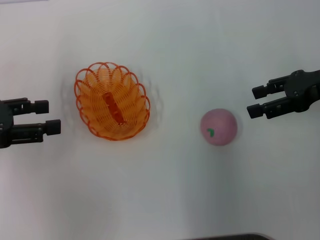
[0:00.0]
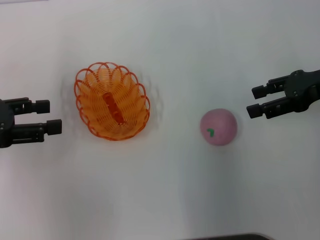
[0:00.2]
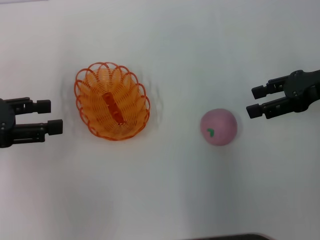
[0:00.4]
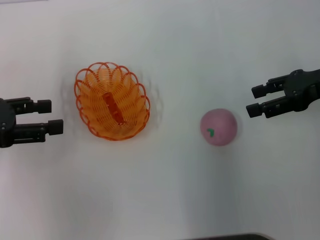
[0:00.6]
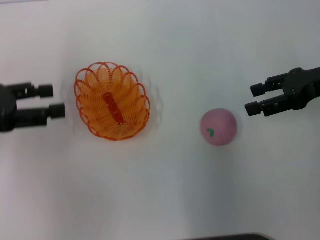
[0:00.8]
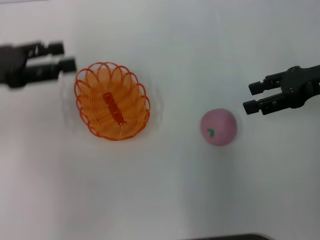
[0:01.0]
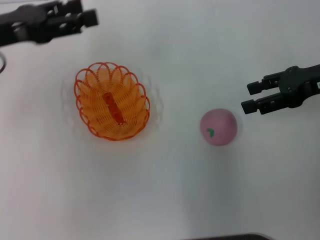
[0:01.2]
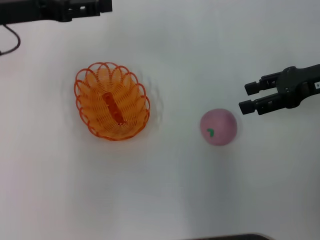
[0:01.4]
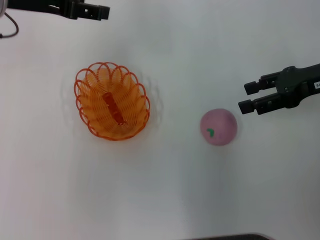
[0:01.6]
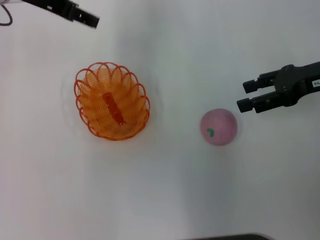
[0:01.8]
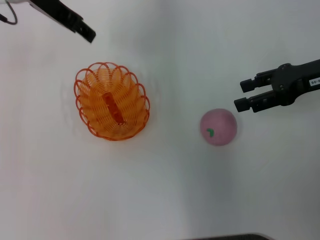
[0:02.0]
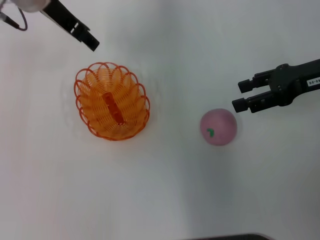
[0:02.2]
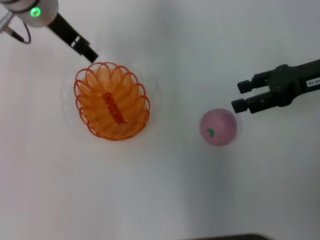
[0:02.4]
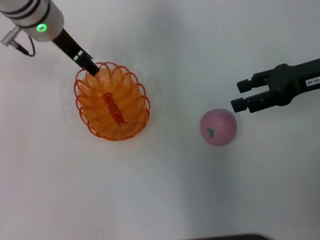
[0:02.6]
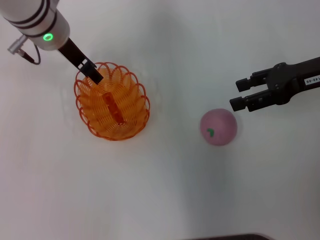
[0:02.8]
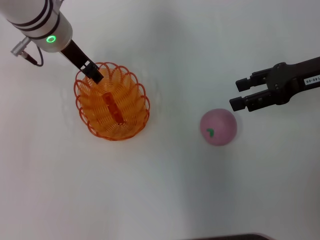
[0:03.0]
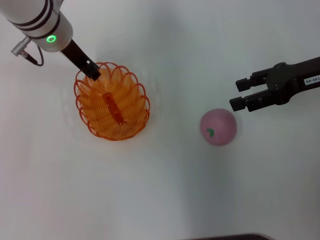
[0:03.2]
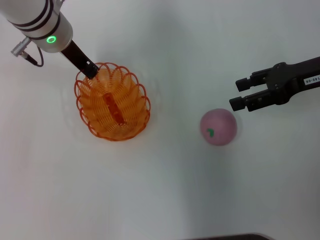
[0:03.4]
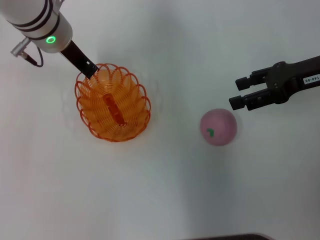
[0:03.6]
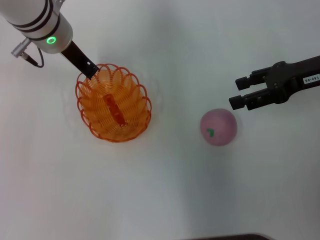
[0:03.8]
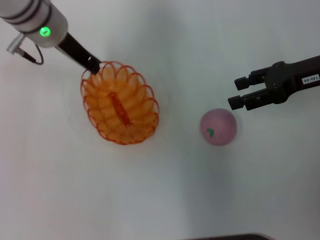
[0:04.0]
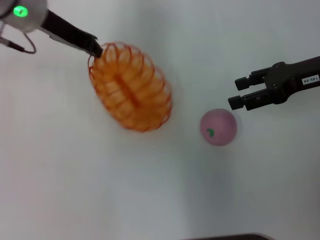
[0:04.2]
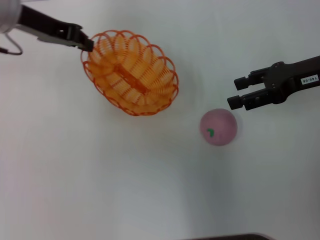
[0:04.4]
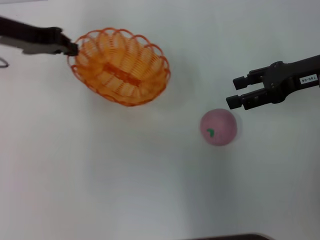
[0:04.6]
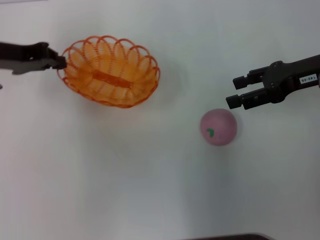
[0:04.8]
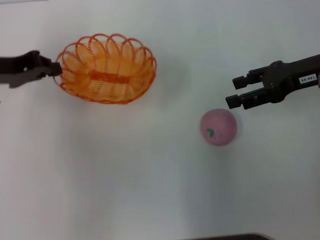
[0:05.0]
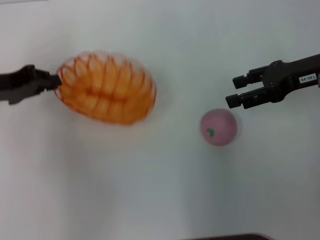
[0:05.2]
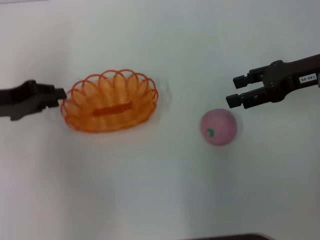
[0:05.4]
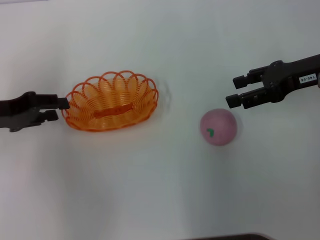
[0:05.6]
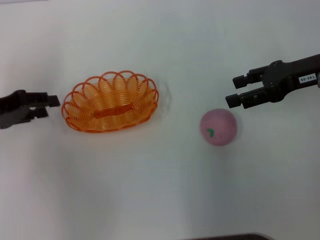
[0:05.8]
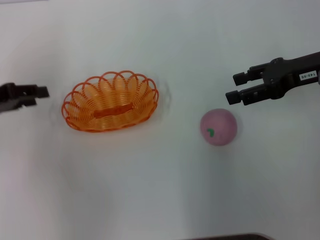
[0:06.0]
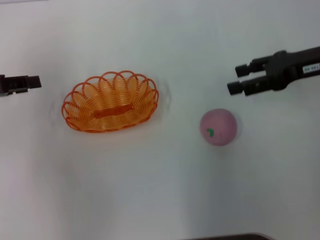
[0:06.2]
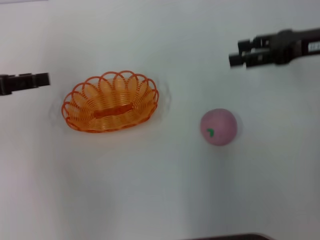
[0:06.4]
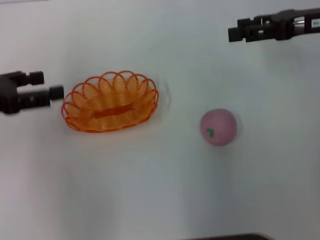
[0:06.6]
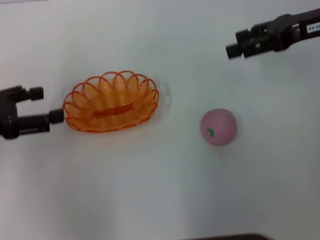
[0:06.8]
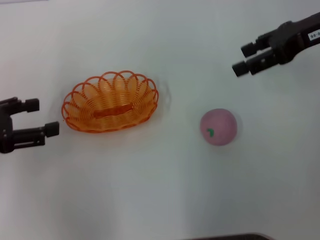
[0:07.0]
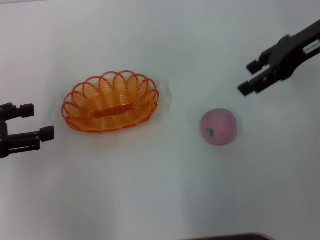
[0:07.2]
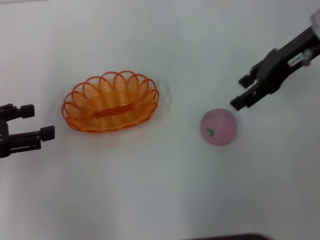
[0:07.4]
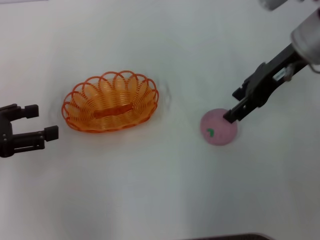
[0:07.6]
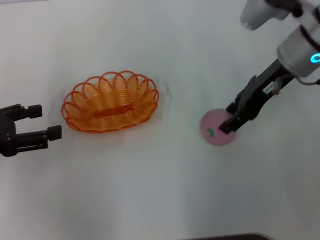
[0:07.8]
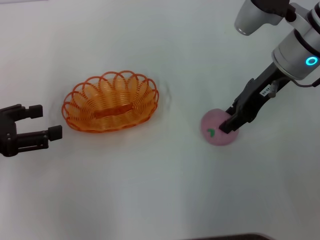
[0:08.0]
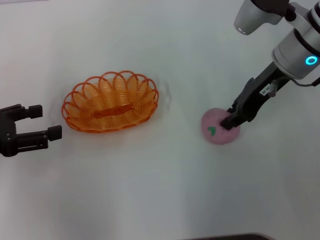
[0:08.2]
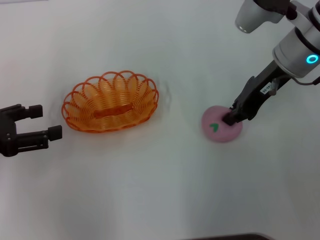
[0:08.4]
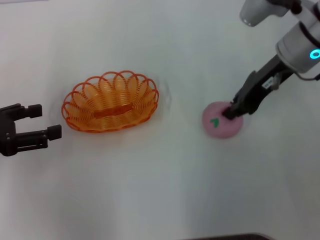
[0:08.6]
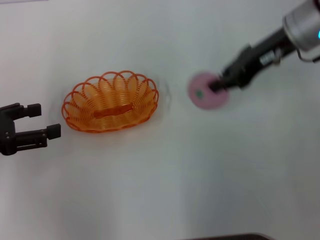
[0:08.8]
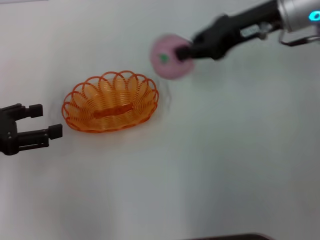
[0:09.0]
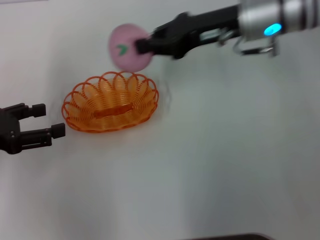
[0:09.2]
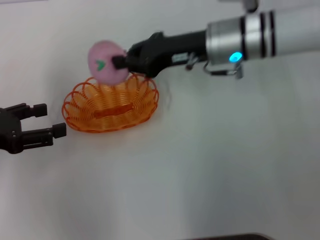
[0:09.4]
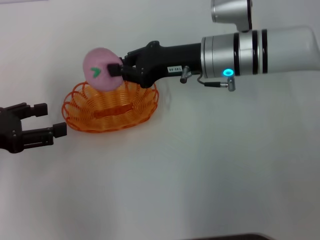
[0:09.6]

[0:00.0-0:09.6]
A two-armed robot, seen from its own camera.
Step, 0:00.0 to 0:04.2: Pick up the basket with the left gripper.
Step, 0:04.4 to 0:06.2: Place the basket in the center of view with the left gripper.
Step, 0:06.4 to 0:08.6: Pick up the peach with the right gripper.
0:00.0 to 0:01.6: The left gripper heads forward, to the right and upward, covering roughly 20 cm.
0:01.6 to 0:03.2: The left gripper shifts roughly 10 cm to the right and downward.
0:03.2 to 0:04.8: The left gripper travels to the left by approximately 15 cm, and closes.
0:04.8 to 0:06.4: The left gripper heads backward, covering roughly 10 cm, and opens.
0:06.4 to 0:08.0: The right gripper moves to the left, approximately 10 cm; the left gripper moves backward, roughly 5 cm, and opens its fingers.
0:08.0 to 0:09.6: The right gripper shifts approximately 10 cm to the left, and closes up.

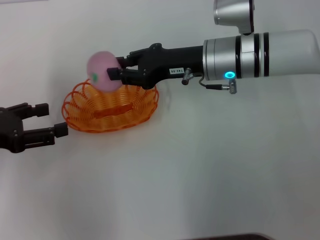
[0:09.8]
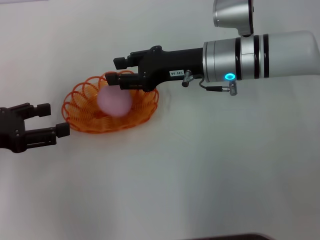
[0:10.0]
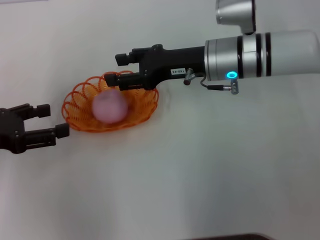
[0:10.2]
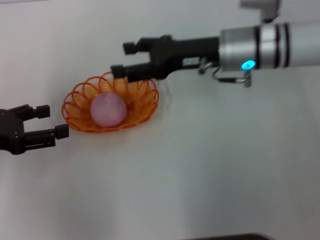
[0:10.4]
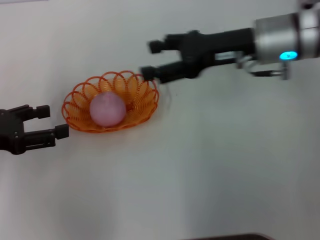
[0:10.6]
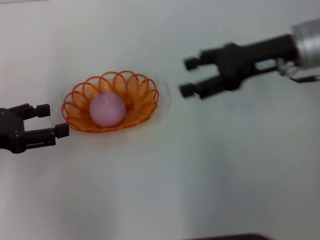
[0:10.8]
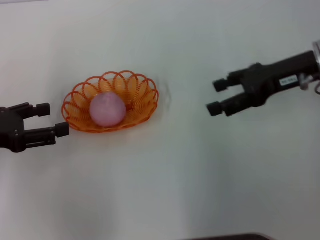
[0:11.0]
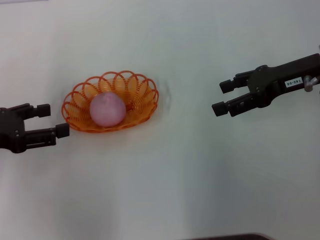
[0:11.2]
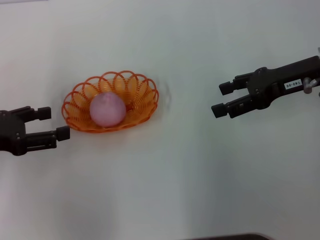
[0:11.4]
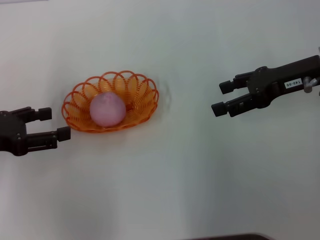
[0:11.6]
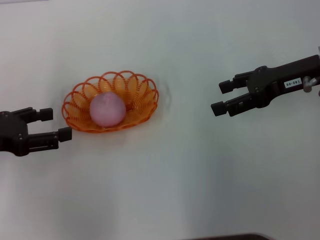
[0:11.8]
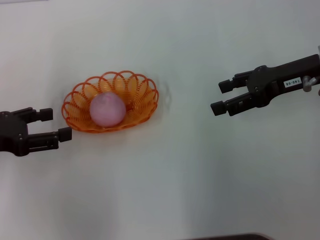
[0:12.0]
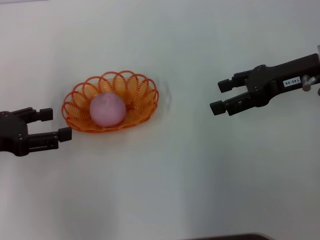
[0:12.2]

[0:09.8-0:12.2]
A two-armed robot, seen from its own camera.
0:09.8 to 0:11.0: The right gripper is displaced to the right by about 15 cm, and opens up.
0:11.0 to 0:12.2: Both grippers stay about where they are.
